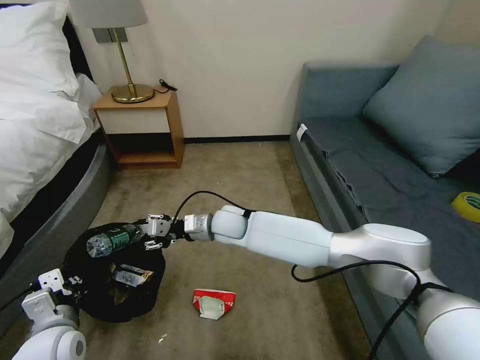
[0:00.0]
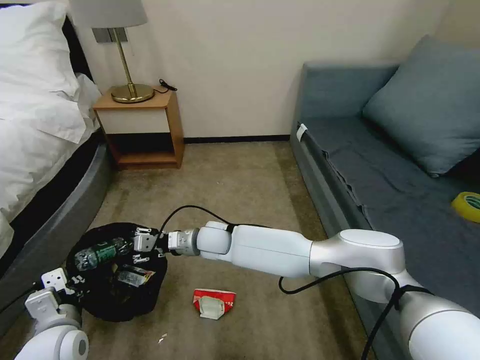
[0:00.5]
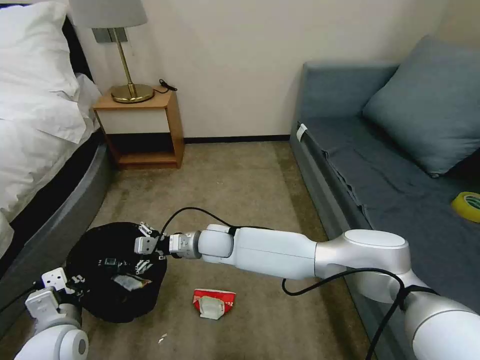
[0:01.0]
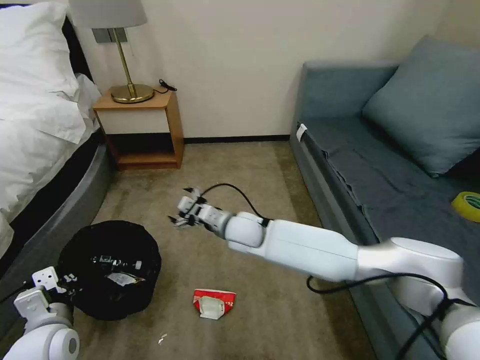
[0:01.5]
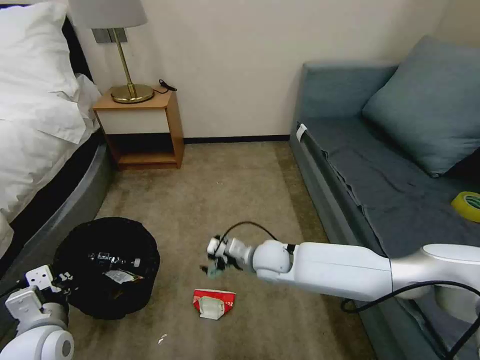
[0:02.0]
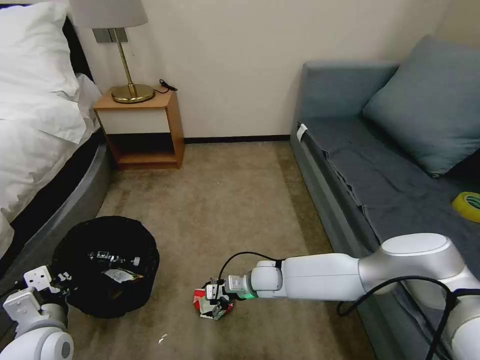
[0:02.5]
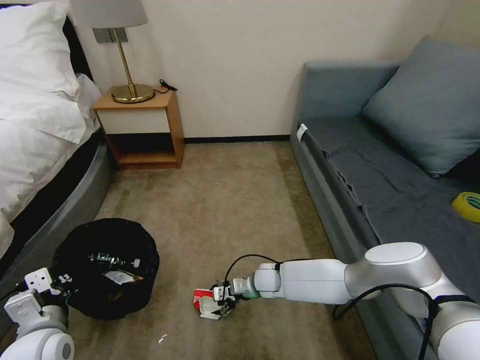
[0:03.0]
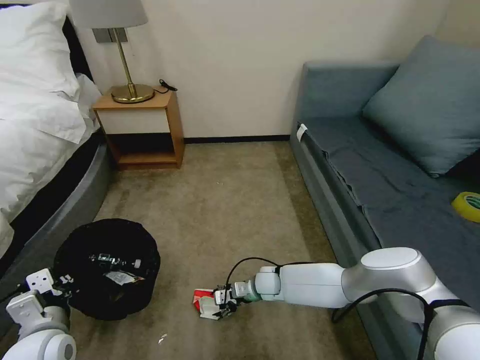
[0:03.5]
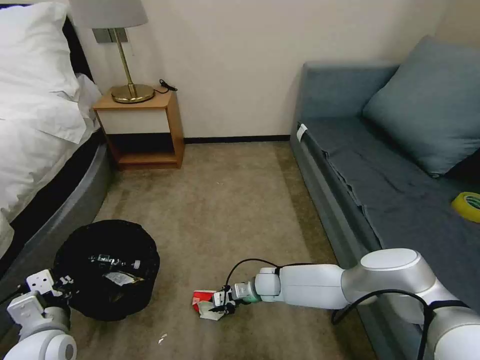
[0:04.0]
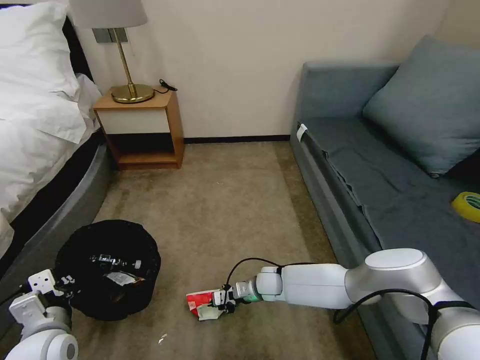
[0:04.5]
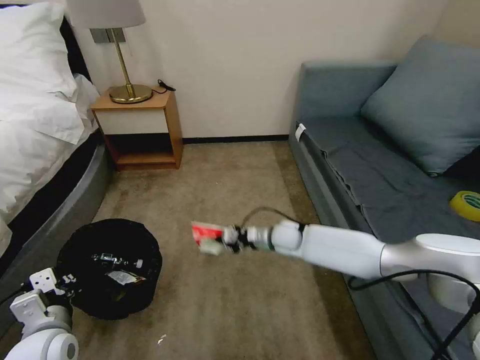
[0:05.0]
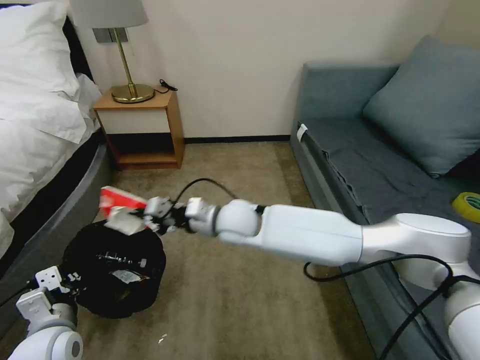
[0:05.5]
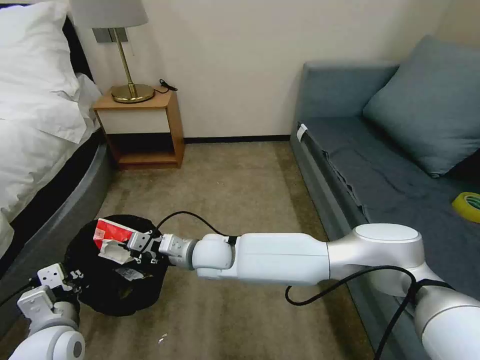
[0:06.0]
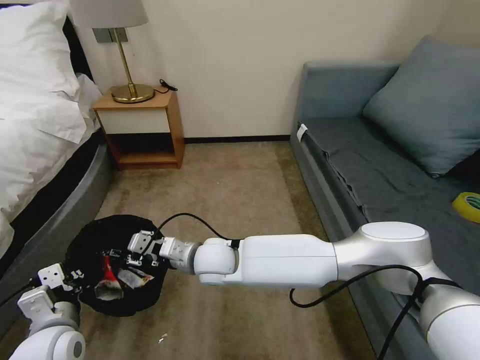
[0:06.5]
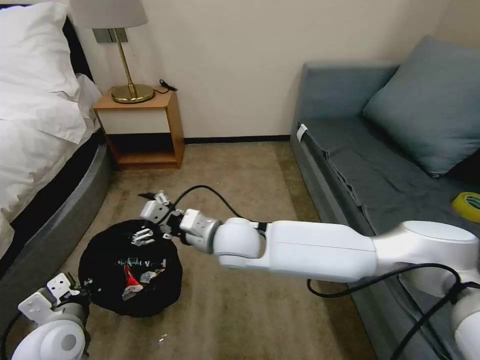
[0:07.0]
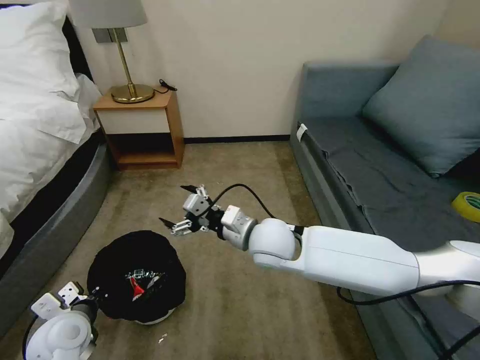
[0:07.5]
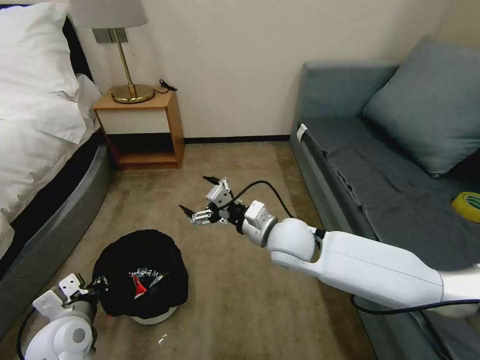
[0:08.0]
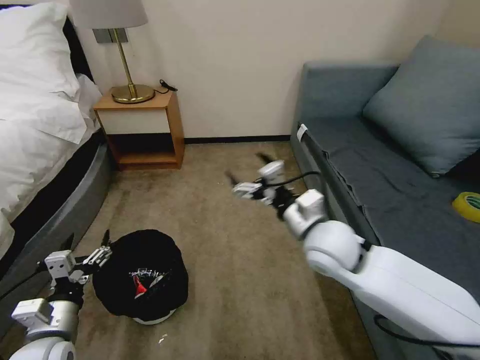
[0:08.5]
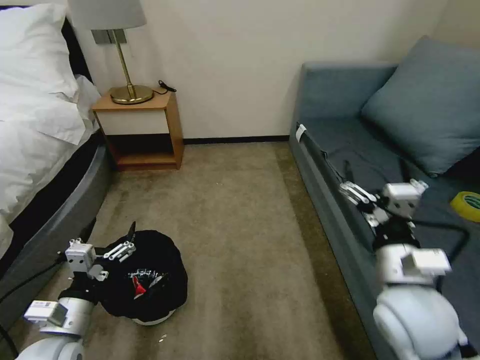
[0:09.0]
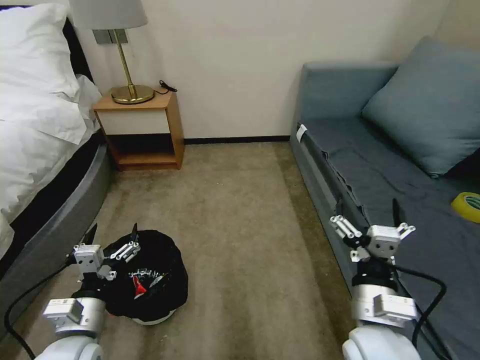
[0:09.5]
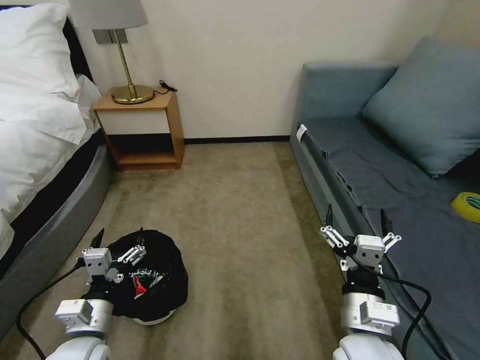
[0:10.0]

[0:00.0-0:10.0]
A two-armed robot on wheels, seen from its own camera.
Task of the whole recording: Pick up the trash bin, then pick up the garbage on the floor and place it into the trash bin.
0:00.0 to 0:02.0: The right gripper is displaced to the right and backward by approximately 15 cm, and opens up.
0:02.0 to 0:04.0: The right gripper moves downward, some 15 cm, and closes its fingers.
0:04.0 to 0:06.0: The right gripper moves upward and to the left, roughly 25 cm.
0:06.0 to 0:08.0: The right gripper shifts roughly 20 cm to the right and upward, and opens its fingers.
0:08.0 to 0:10.0: The right gripper shifts approximately 20 cm backward and to the right. The left gripper shifts approximately 5 cm to the right, and opens its fingers.

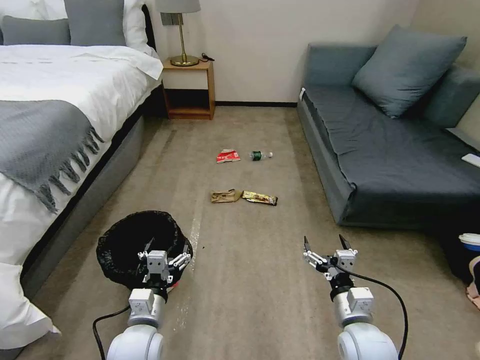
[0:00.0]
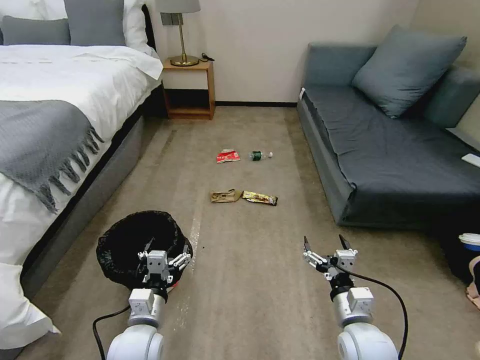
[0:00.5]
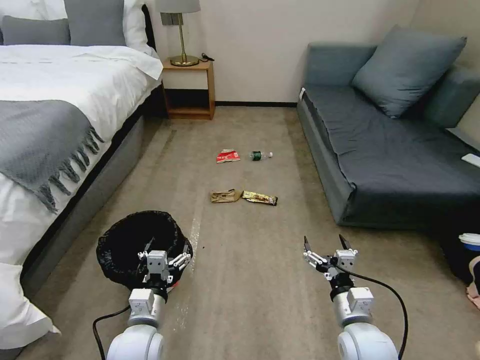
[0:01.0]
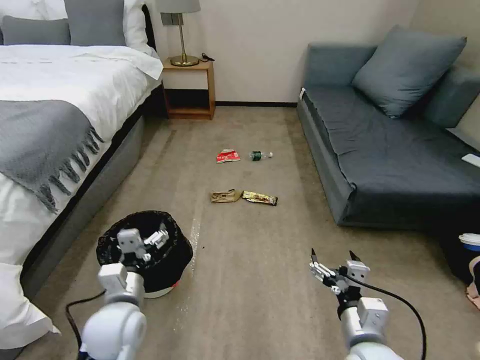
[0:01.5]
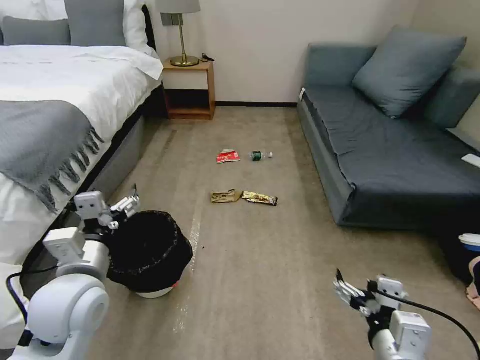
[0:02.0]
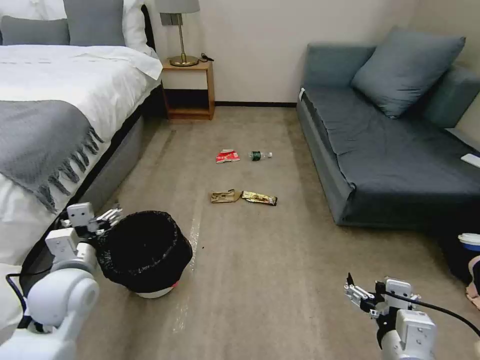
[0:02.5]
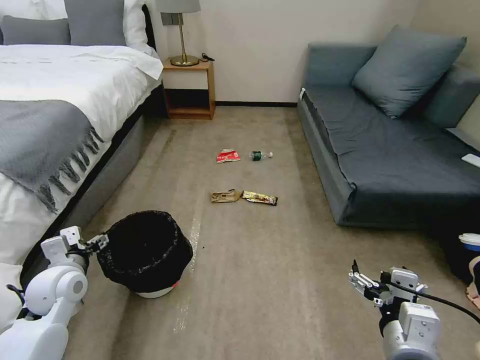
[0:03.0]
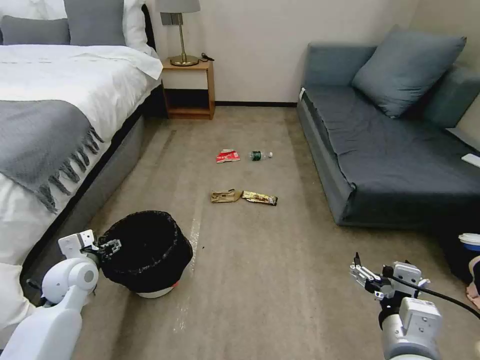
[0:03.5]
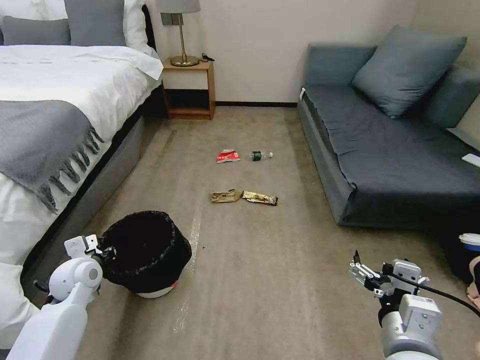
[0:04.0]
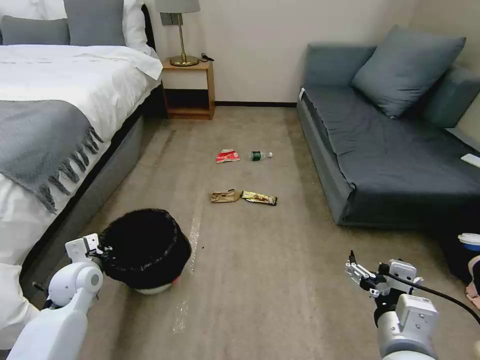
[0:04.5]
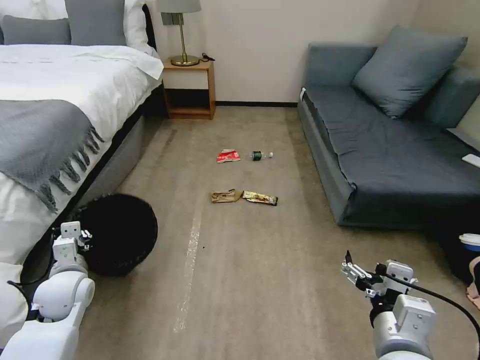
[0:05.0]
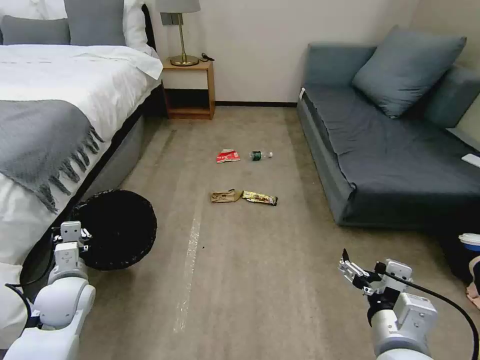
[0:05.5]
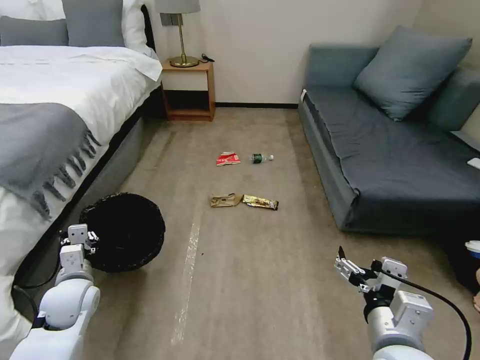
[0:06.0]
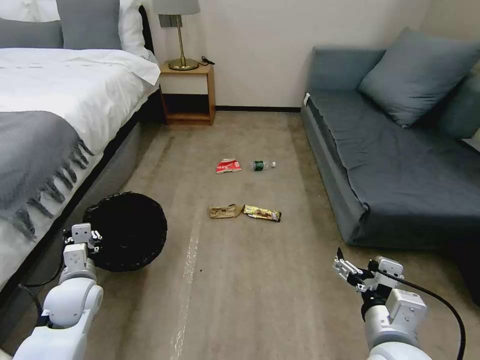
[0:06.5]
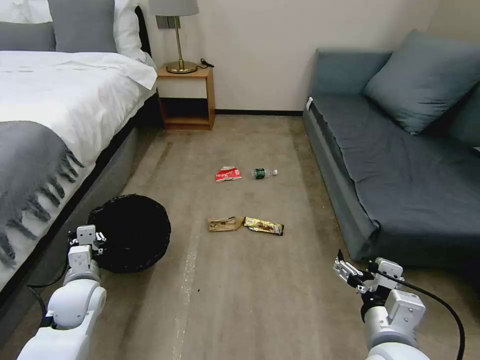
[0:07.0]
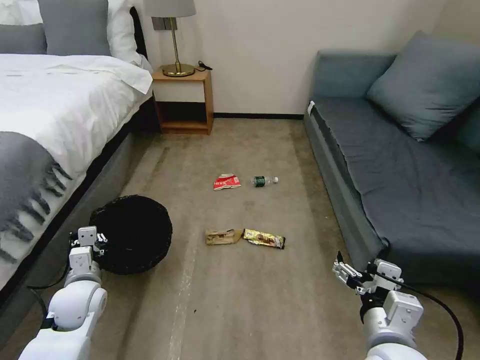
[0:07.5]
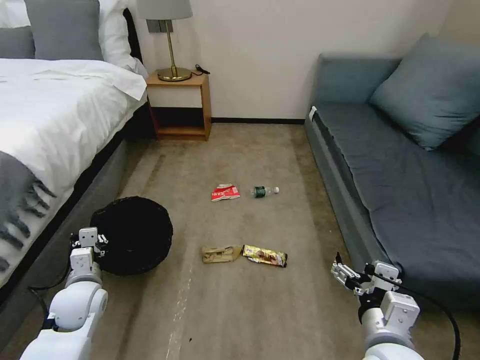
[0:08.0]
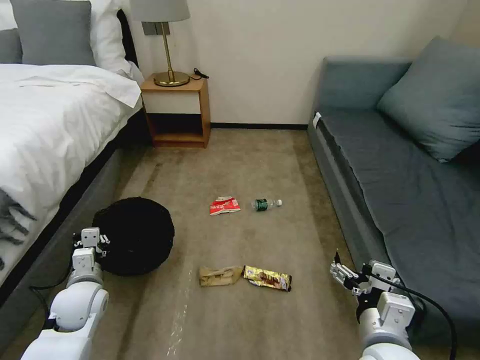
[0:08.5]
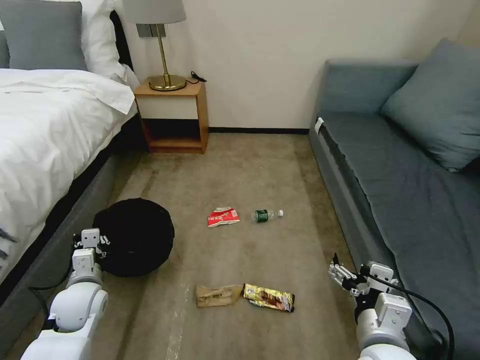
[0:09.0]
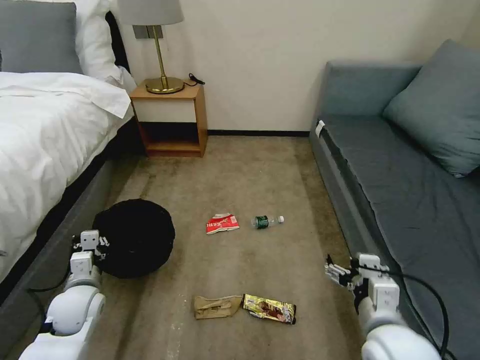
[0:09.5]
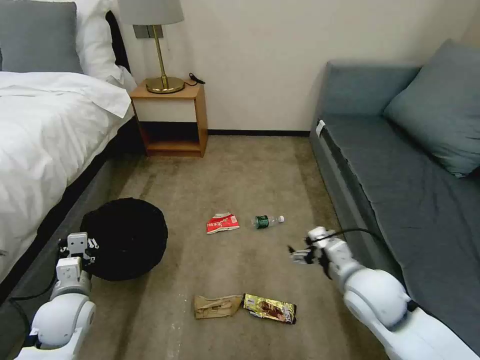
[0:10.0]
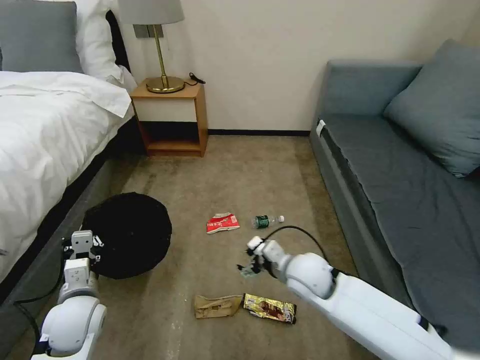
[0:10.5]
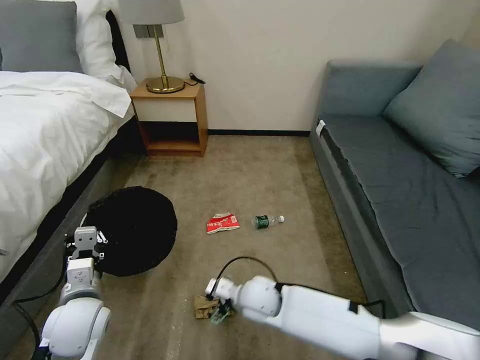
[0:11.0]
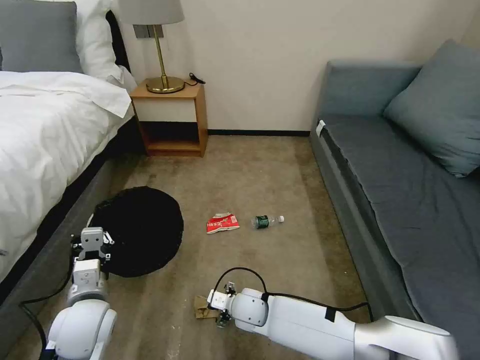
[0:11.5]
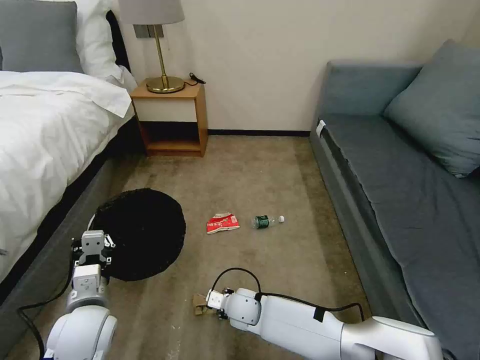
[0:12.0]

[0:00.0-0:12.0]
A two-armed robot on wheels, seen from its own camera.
Task of the whole recording: Pick up the trash bin, then pick up the garbage on the floor and place it into the trash bin.
0:02.0 to 0:04.0: The left gripper moves downward, to the left and forward, some 20 cm, and closes up.
0:08.0 to 0:10.0: The right gripper travels forward by approximately 10 cm.
0:10.0 to 0:12.0: The left gripper travels to the right by about 10 cm. Meanwhile the right gripper travels to the left and downward by approximately 35 cm, and closes its fingers.

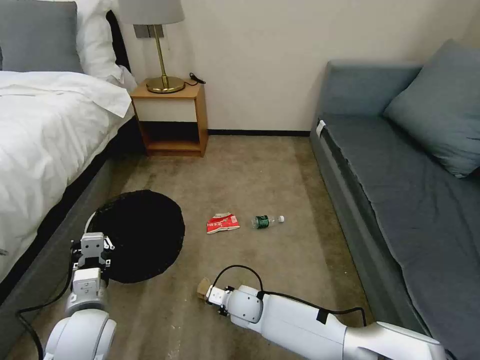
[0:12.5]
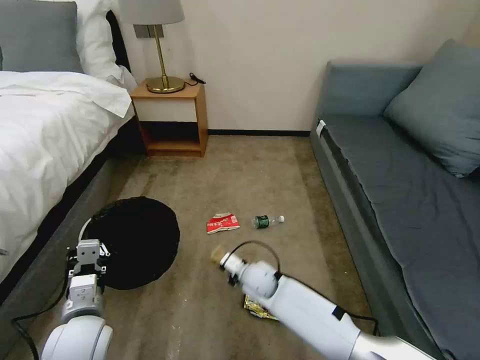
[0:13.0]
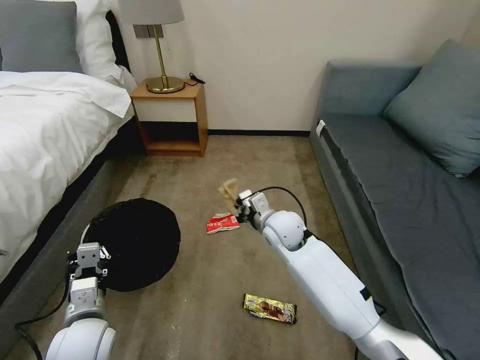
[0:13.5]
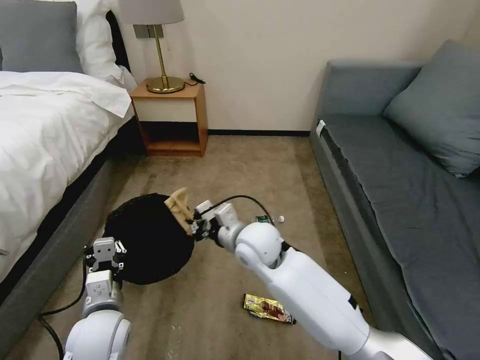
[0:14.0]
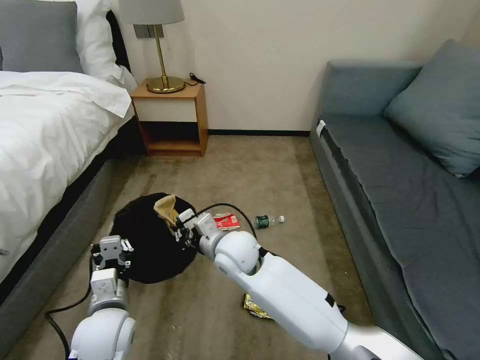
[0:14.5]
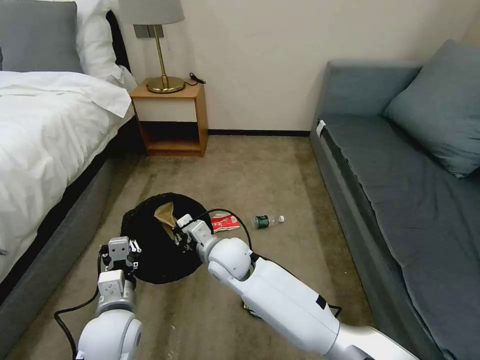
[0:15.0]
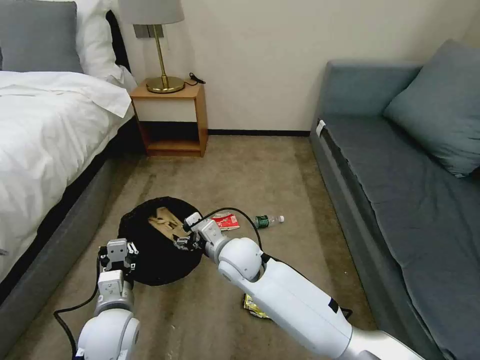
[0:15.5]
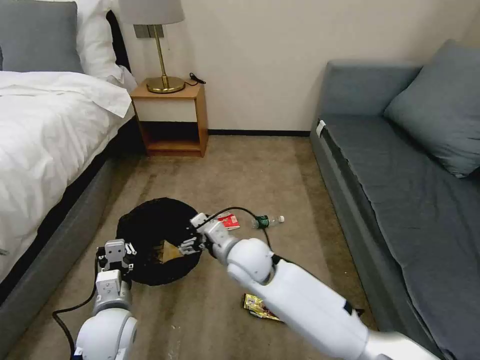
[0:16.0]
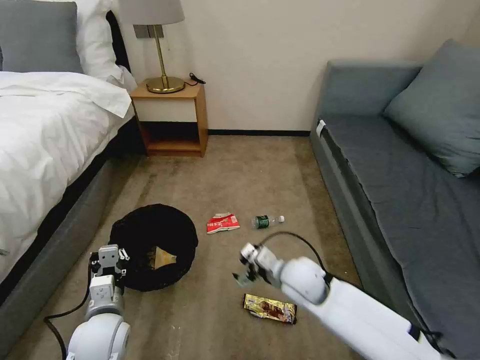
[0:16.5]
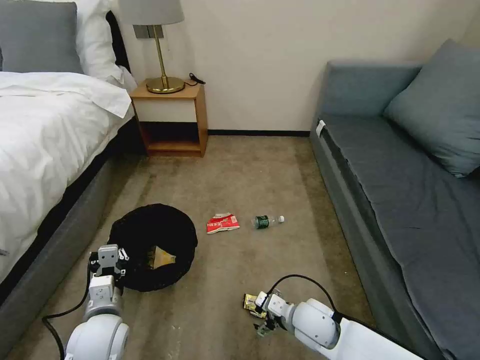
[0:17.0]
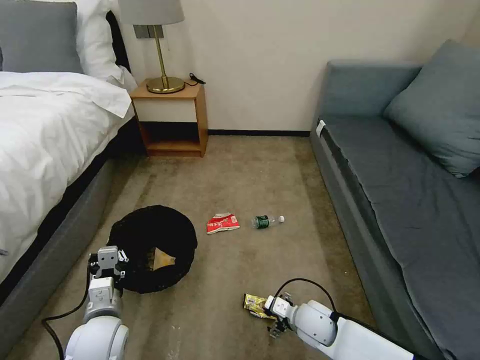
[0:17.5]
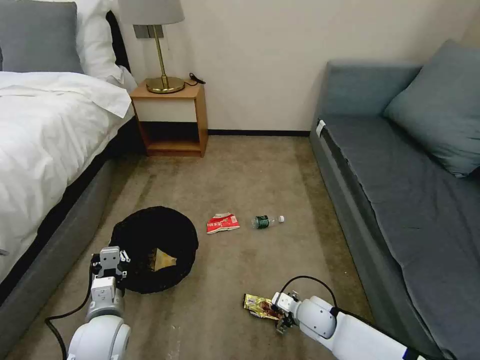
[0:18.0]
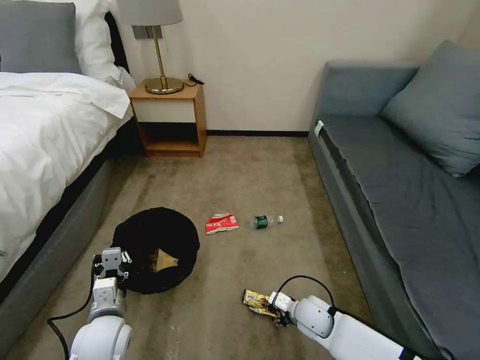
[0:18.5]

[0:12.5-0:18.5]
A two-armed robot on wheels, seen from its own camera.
Task of the whole recording: Pick up the trash bin, then pick up the garbage on the floor and place it into the trash bin.
0:12.5 to 0:14.5: The right gripper travels upward by some 20 cm.
0:14.5 to 0:16.5: The right gripper shifts roughly 15 cm to the right, and opens its fingers.
0:16.5 to 0:18.5: The right gripper travels downward by roughly 15 cm, and closes up.
